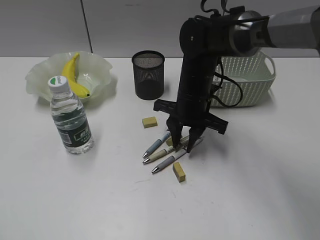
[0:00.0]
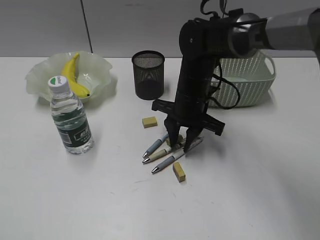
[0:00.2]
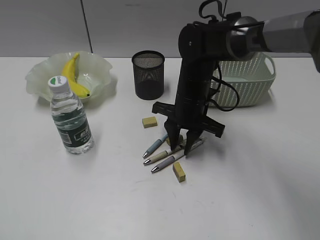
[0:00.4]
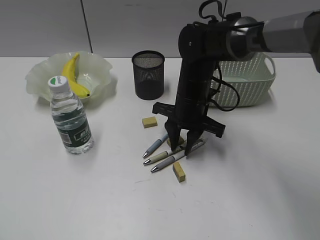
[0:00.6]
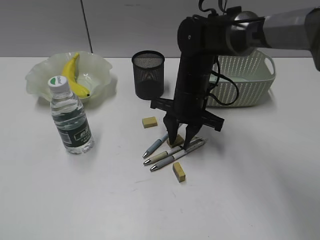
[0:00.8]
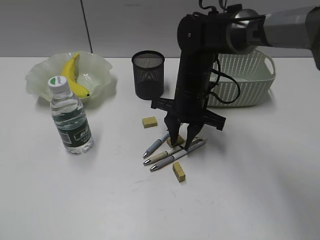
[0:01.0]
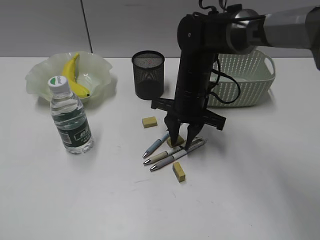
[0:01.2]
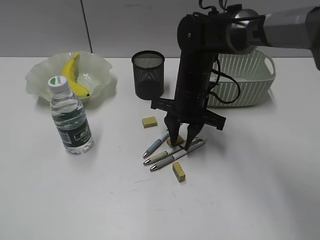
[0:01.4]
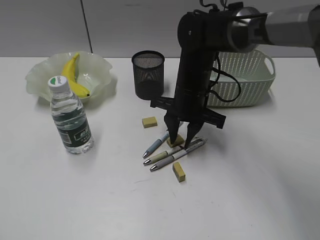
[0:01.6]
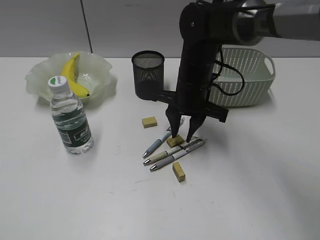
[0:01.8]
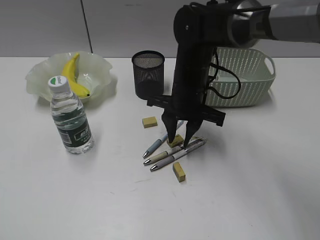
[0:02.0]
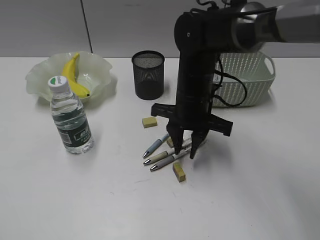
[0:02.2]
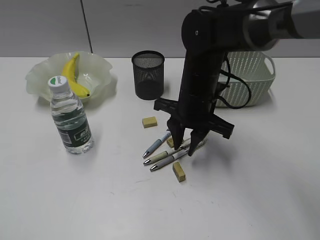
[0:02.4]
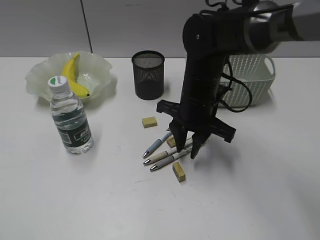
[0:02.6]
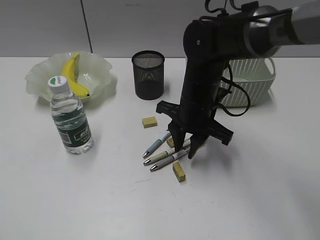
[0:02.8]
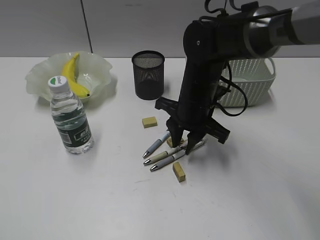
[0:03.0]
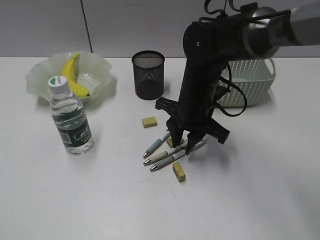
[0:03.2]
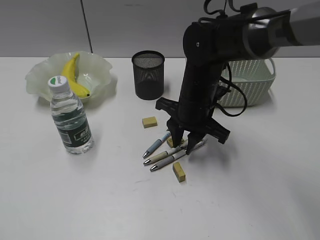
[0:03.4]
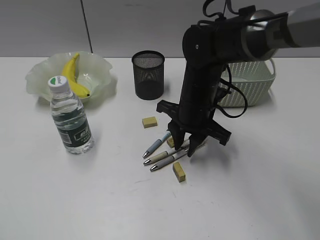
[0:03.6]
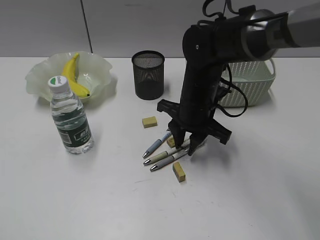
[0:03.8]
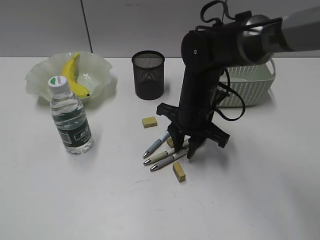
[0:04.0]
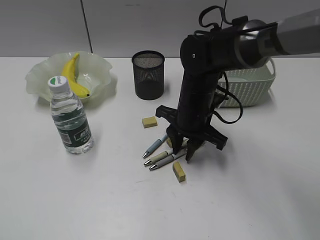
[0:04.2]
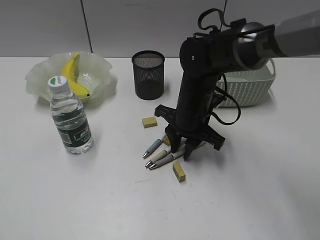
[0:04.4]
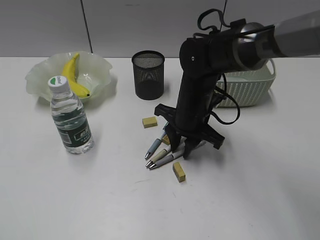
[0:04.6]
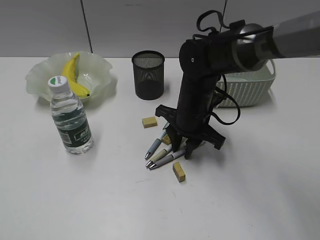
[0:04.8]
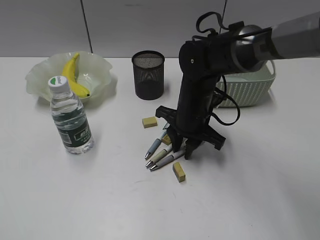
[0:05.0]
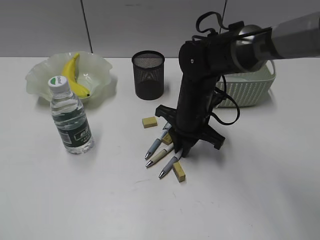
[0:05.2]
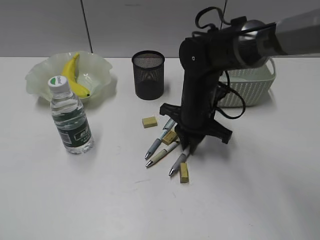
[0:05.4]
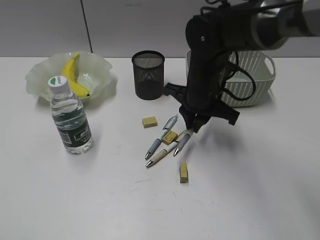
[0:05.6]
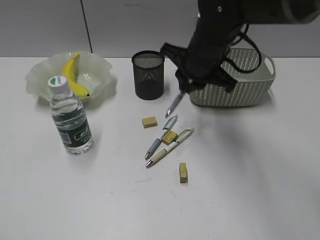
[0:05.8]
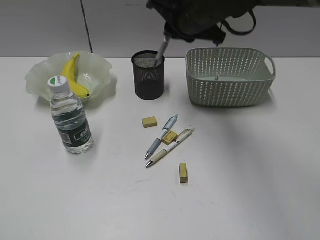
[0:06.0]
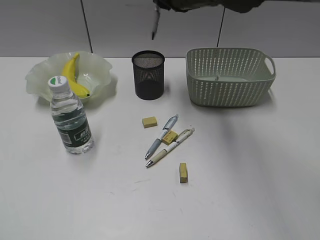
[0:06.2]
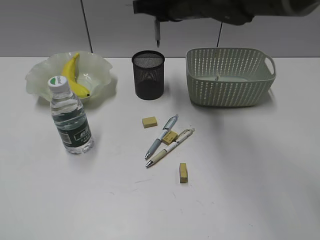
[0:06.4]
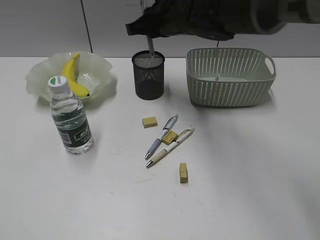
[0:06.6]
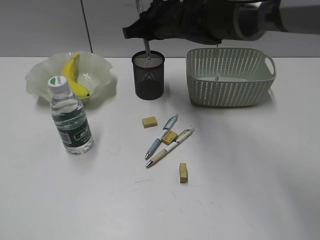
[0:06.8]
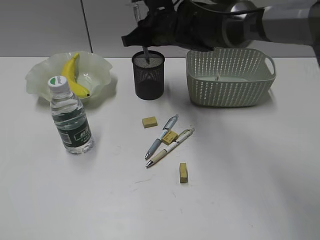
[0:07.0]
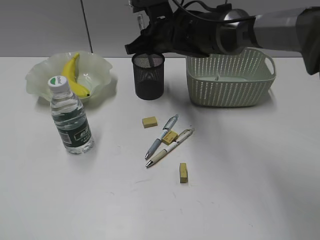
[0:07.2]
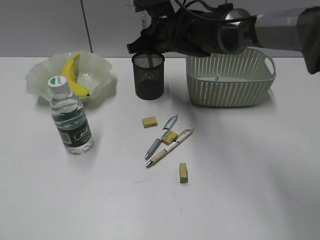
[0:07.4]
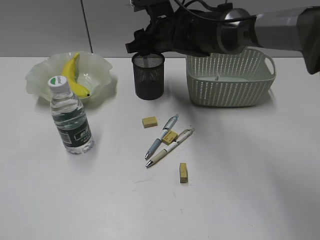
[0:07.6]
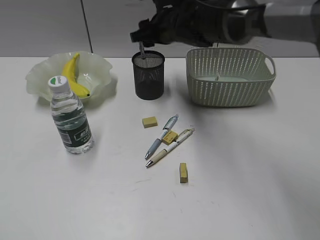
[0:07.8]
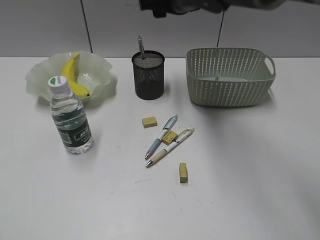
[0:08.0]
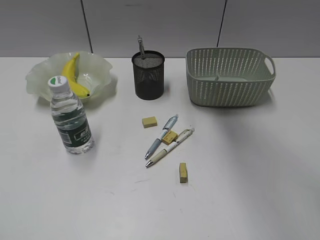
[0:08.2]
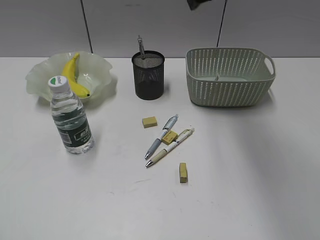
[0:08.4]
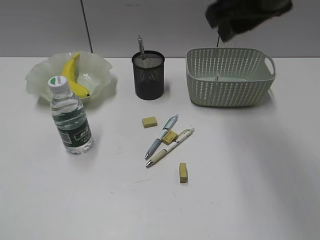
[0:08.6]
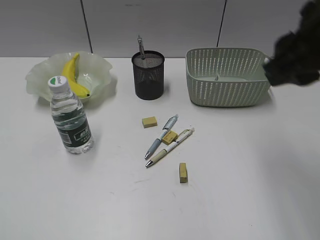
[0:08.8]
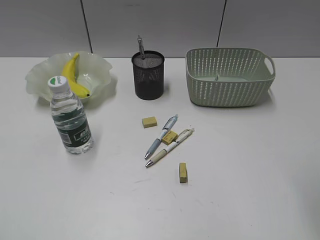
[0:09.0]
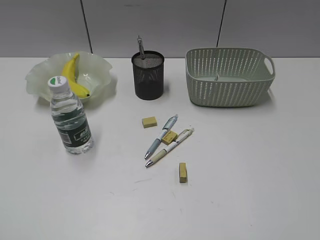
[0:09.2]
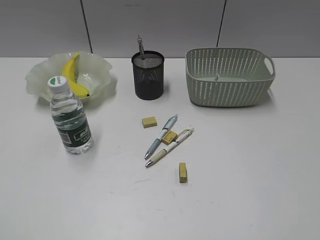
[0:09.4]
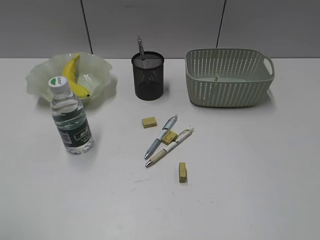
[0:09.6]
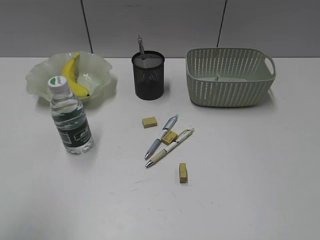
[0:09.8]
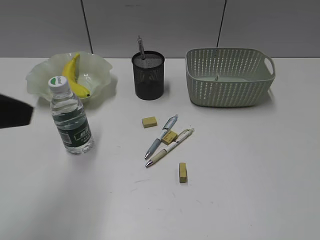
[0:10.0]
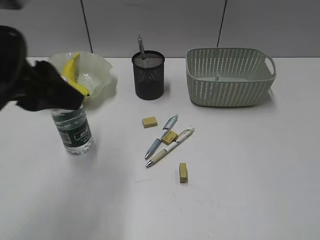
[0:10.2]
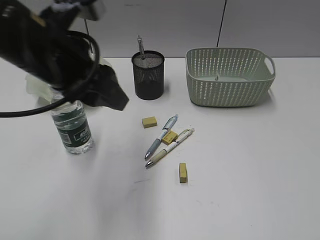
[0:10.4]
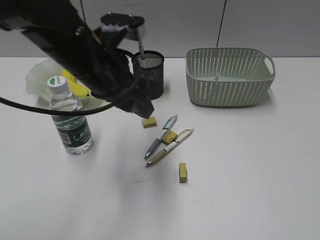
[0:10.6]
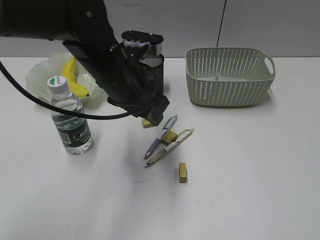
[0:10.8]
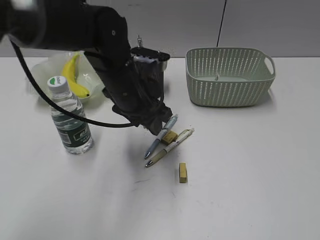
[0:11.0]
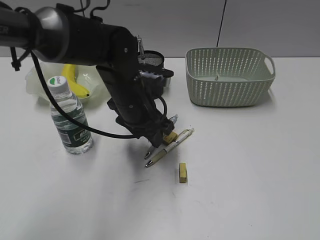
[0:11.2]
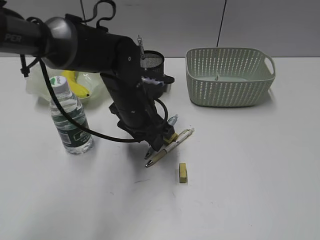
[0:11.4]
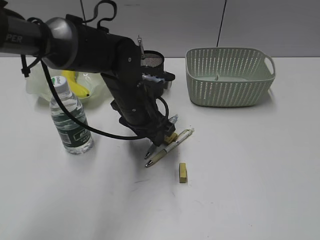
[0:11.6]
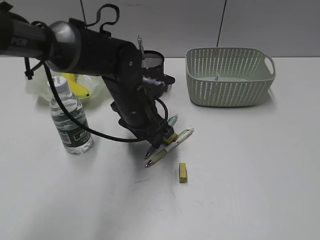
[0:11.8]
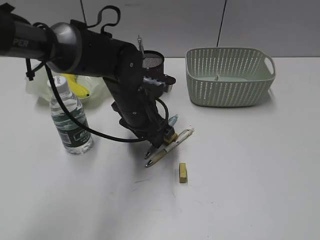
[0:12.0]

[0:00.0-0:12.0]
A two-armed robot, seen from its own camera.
Step, 0:00.0 to 0:05.2: Grasp the gray pen with right gripper.
Step, 0:05.4 to 0:07.6: Place the gray pen in pen holder with right gripper.
0:00.0 to 0:01.6: The two grippers keep their place.
0:01.6 to 0:04.4: The grippers make only small movements.
0:04.4 to 0:06.0: The right gripper shifts roughly 15 cm upward, and closes.
0:06.0 to 0:07.6: The right gripper moves downward and forward, roughly 10 cm, and opens up.
0:07.6 to 0:09.0: The right gripper shifts roughly 40 cm backward, to the right and upward, and closes its fingers.
0:09.0 to 0:10.4: The right gripper is displaced backward and to the right by roughly 15 cm, while the left gripper is displaced forward and to the right by about 35 cm.
0:10.4 to 0:12.0: The left gripper heads downward, to the right and forward, covering approximately 20 cm.

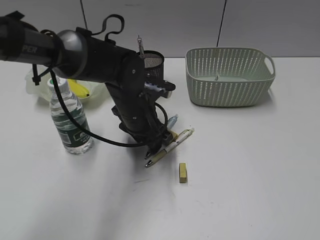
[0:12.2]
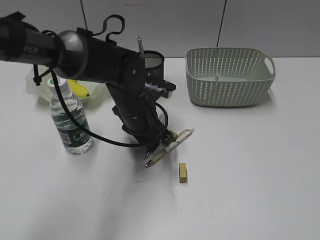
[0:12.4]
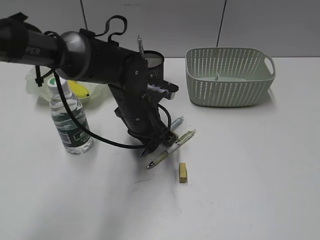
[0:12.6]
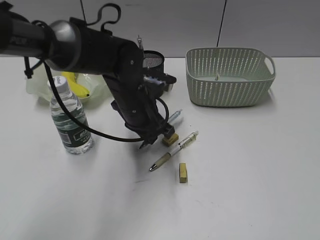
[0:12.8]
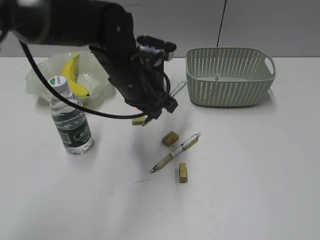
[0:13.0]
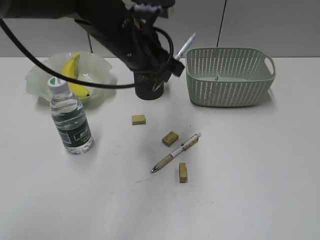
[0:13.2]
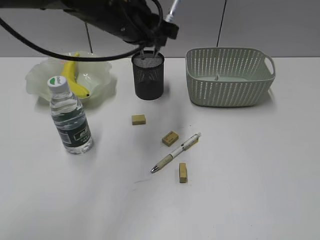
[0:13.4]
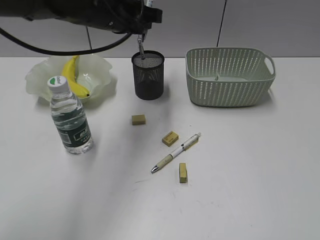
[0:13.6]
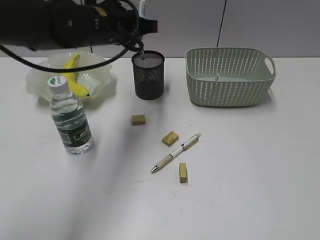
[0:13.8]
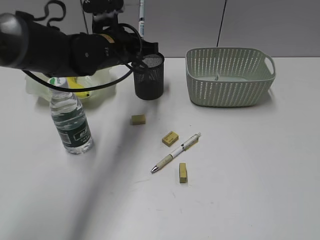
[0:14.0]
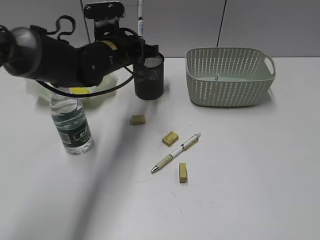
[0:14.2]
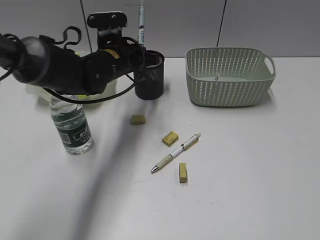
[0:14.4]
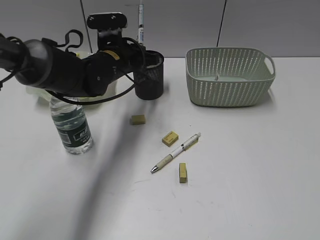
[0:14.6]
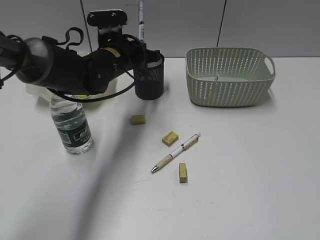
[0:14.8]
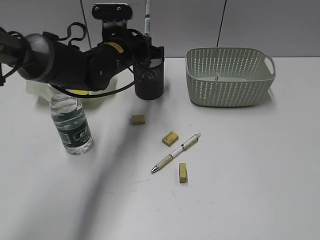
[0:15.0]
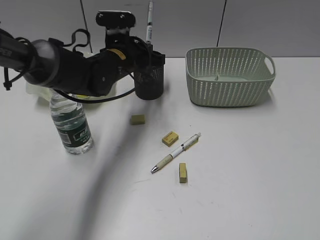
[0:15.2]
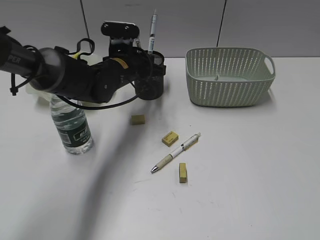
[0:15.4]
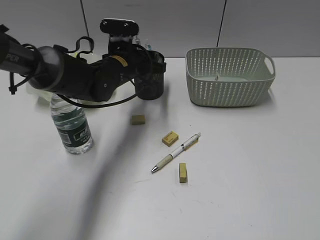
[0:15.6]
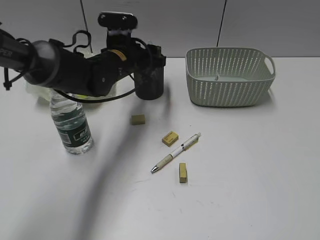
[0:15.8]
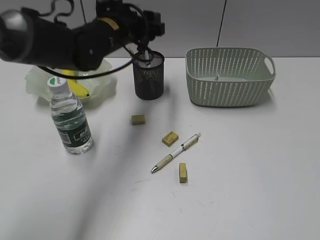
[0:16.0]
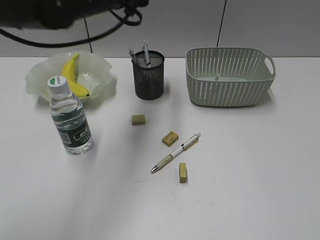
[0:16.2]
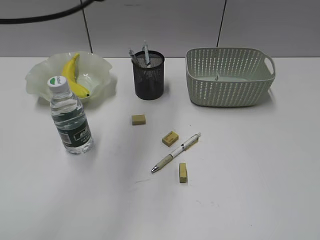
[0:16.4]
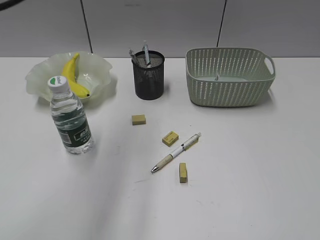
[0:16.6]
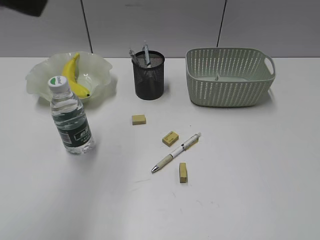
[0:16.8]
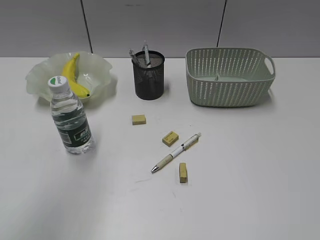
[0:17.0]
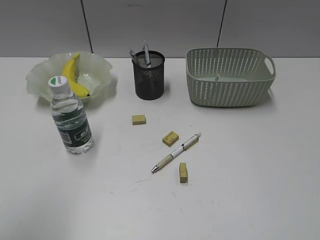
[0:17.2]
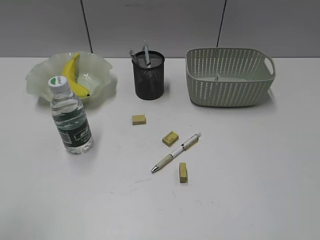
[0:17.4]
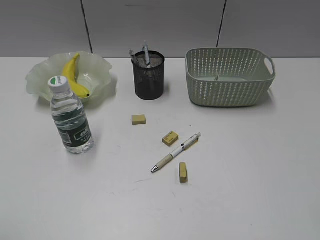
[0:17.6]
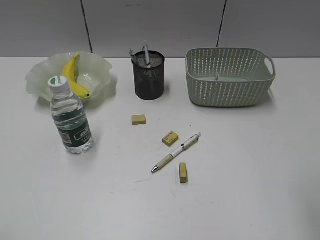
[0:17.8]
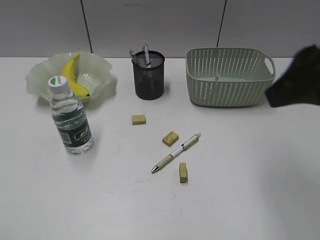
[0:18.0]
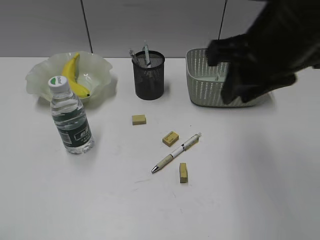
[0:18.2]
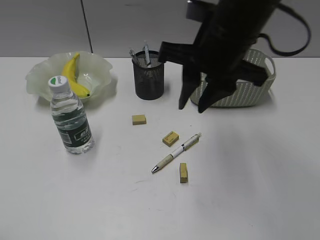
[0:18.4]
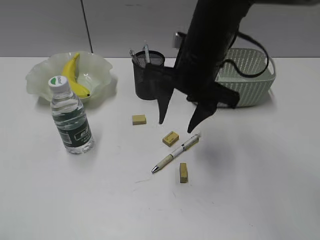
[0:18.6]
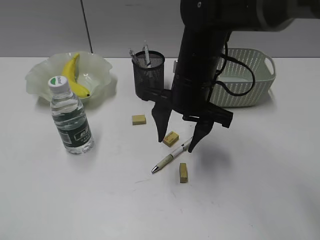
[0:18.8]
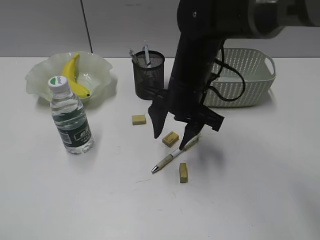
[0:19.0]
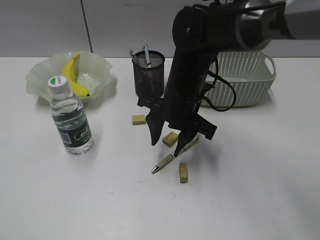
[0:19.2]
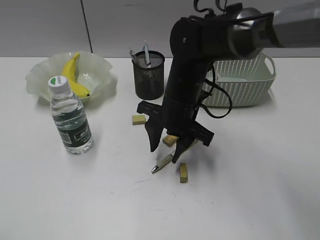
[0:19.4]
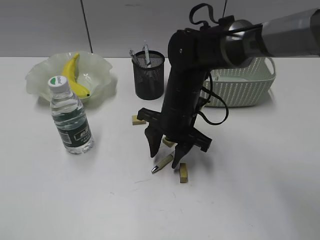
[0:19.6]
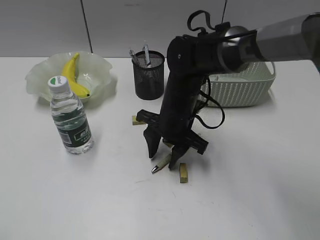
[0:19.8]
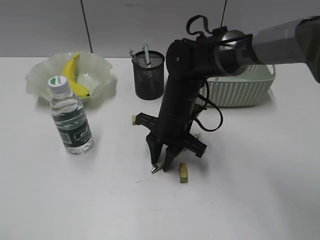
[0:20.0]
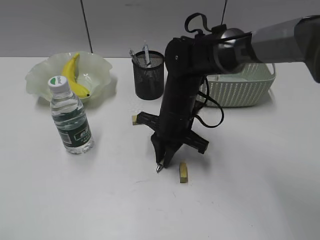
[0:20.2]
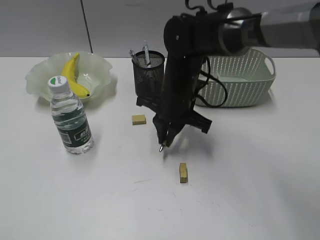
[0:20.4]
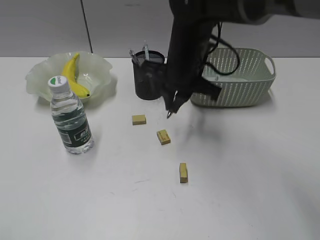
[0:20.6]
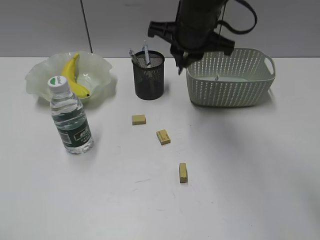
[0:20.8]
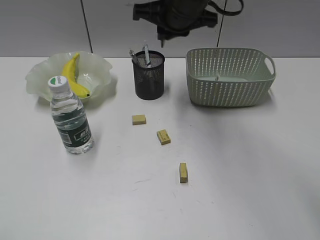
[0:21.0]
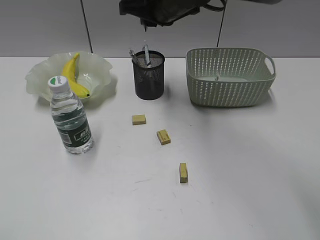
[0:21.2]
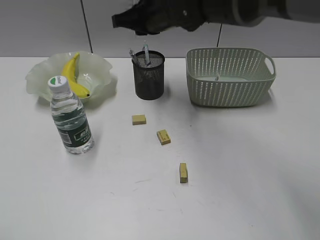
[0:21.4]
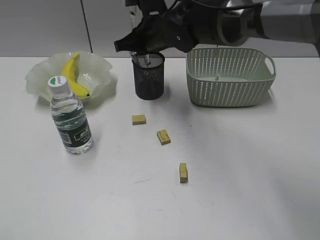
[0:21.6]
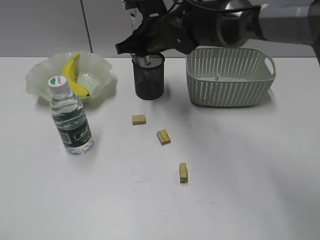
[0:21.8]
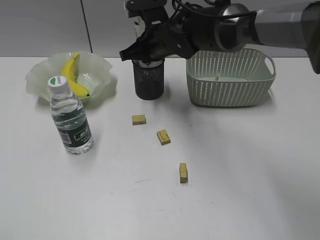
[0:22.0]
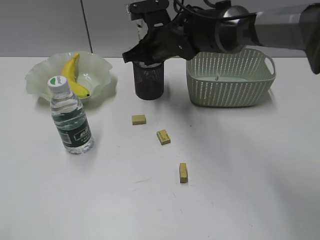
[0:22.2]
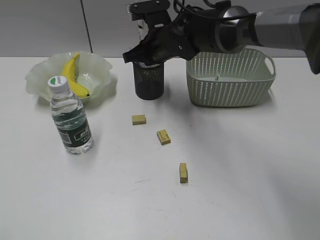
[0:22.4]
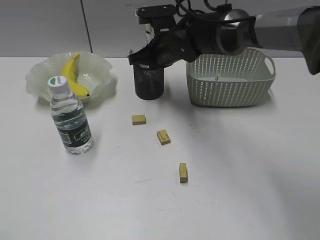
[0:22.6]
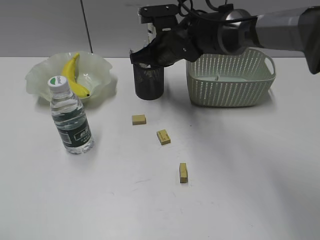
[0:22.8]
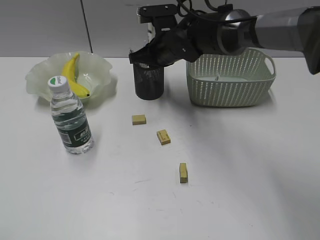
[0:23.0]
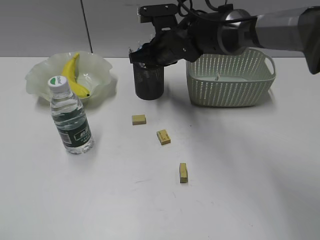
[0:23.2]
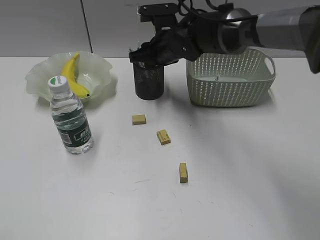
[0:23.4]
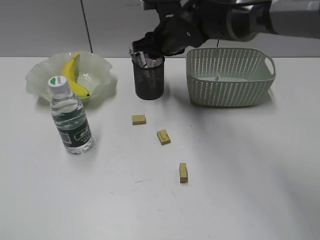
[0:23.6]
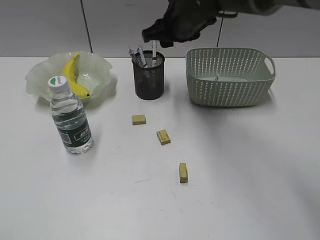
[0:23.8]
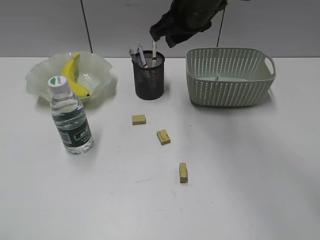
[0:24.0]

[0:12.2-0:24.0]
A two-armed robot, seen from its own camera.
Step, 0:12.8 to 0:15.8: Place the blue pen in pen holder with left gripper.
Step, 0:16.0 to 0:20.0: Grasp the yellow pen with right gripper.
Step, 0:20.2 to 0:23.4: Place the yellow pen in pen holder with right gripper.
0:12.2 to 0:13.6: The left gripper heads upward, covering about 15 cm, and closes its fingers.
0:13.6 to 0:15.2: The left gripper travels downward by roughly 10 cm.
0:15.2 to 0:16.6: The left gripper is displaced upward and backward by some 30 cm, and opens.
0:16.6 to 0:18.2: The right gripper is displaced forward and to the left by about 30 cm. The left gripper shifts approximately 30 cm backward, to the left and downward.
0:18.2 to 0:19.6: The right gripper heads downward, to the left and forward, covering some 25 cm, and opens its fingers.
0:19.6 to 0:21.0: The right gripper moves upward, roughly 15 cm, and closes up.
0:21.0 to 0:22.6: The right gripper shifts approximately 10 cm downward.
0:22.6 to 0:24.0: The right gripper is displaced upward and backward by about 15 cm, and opens its fingers.
